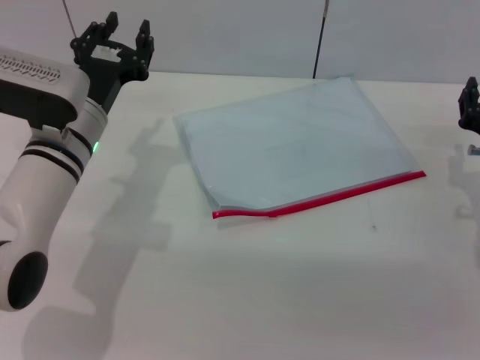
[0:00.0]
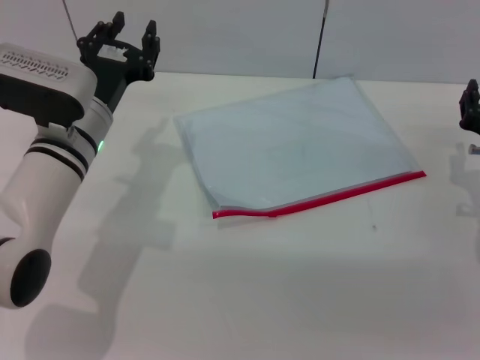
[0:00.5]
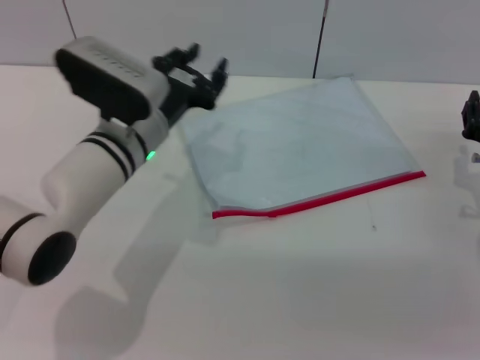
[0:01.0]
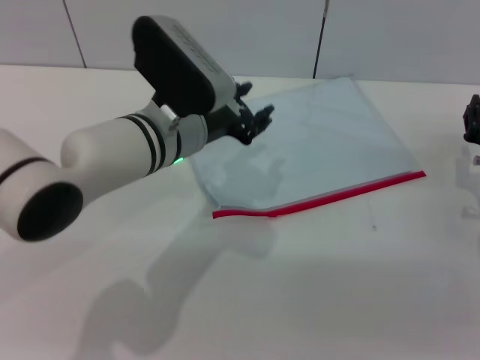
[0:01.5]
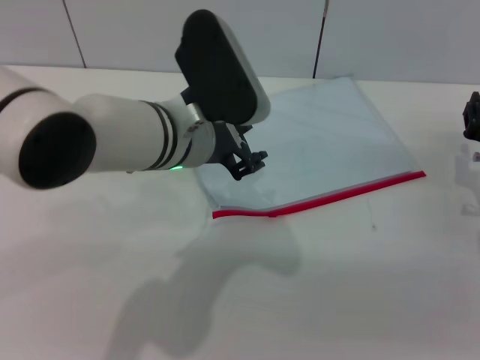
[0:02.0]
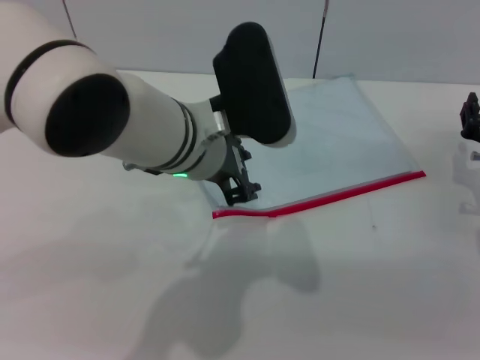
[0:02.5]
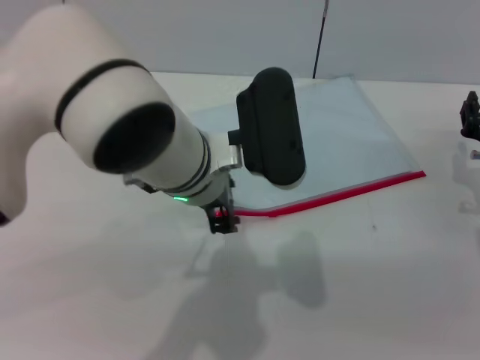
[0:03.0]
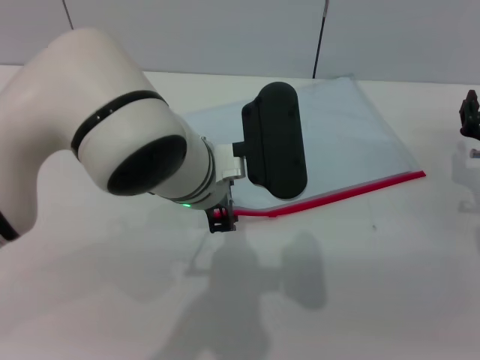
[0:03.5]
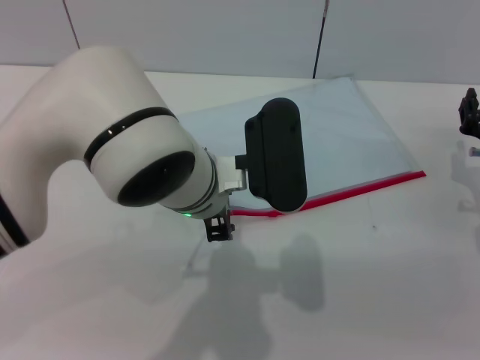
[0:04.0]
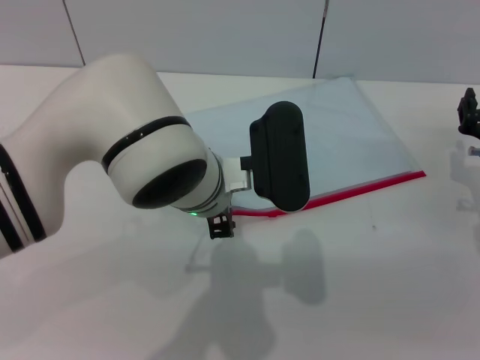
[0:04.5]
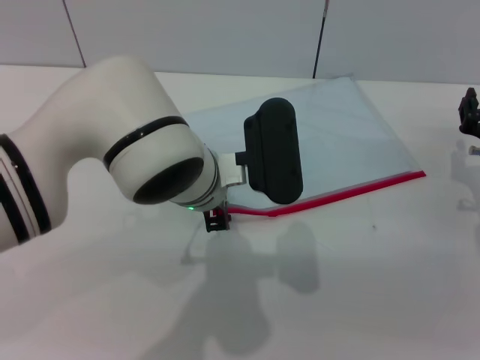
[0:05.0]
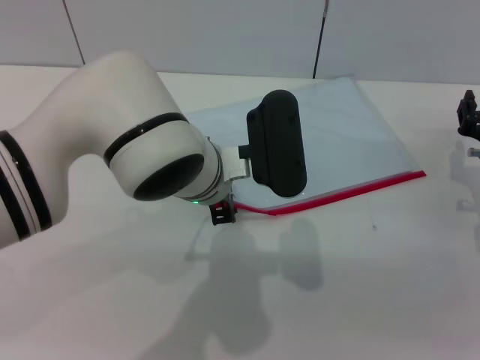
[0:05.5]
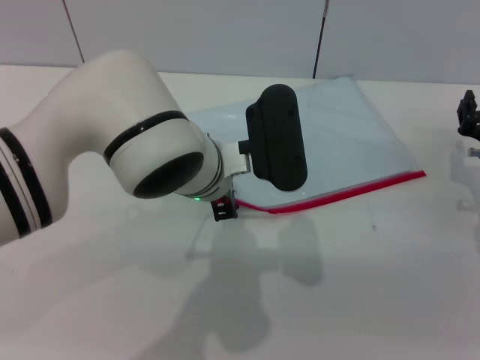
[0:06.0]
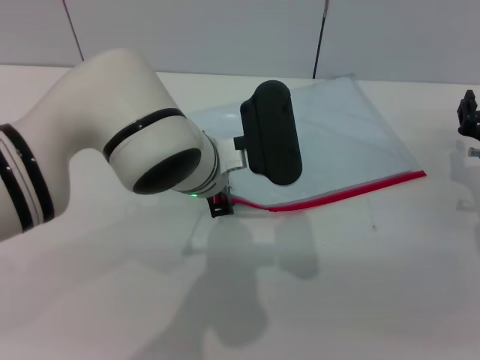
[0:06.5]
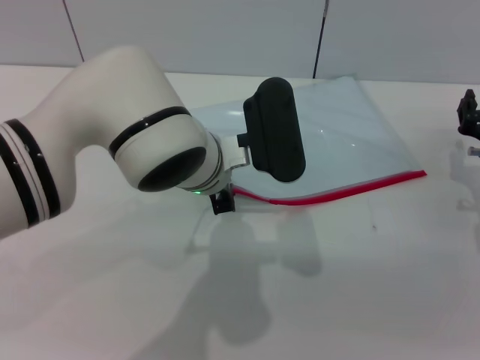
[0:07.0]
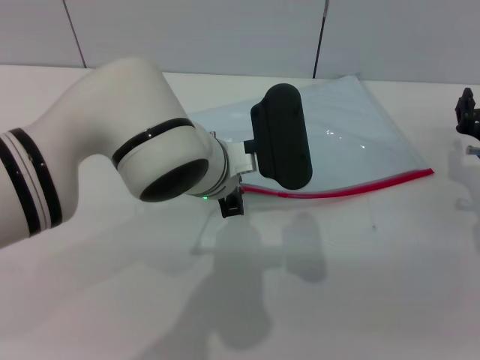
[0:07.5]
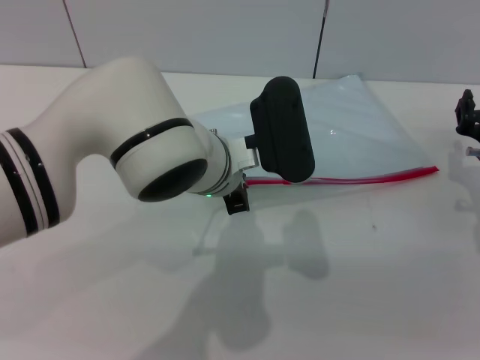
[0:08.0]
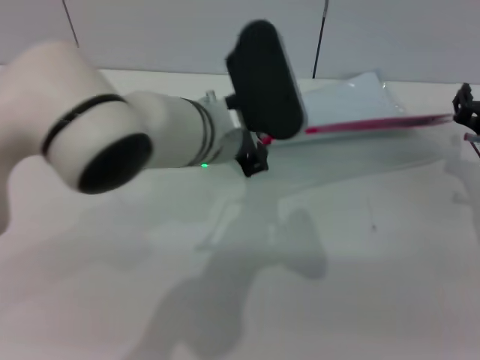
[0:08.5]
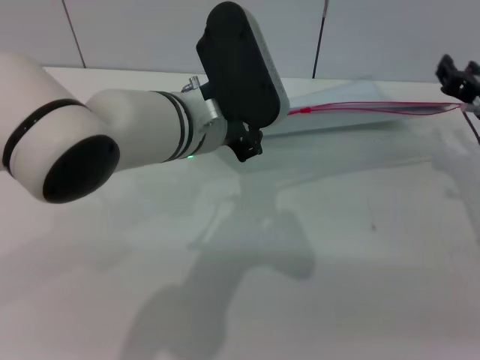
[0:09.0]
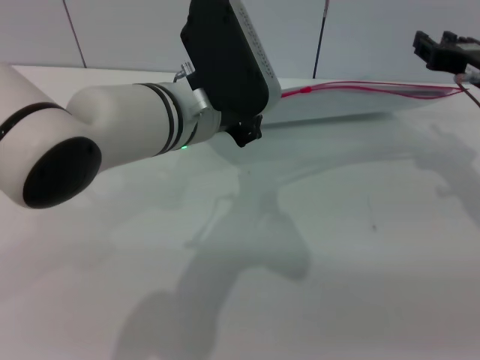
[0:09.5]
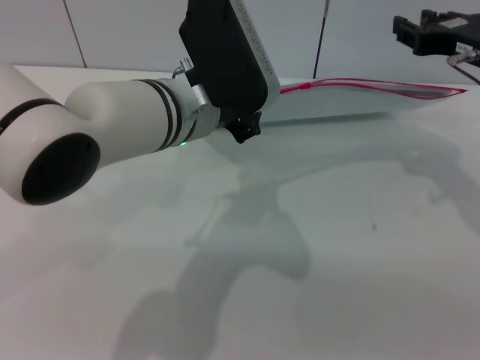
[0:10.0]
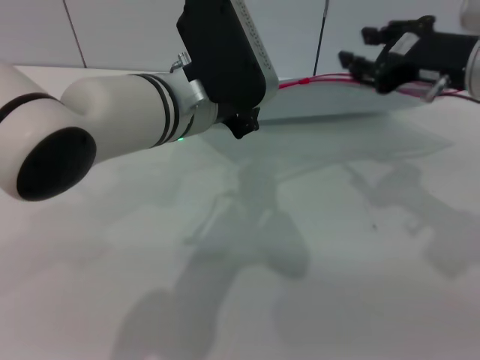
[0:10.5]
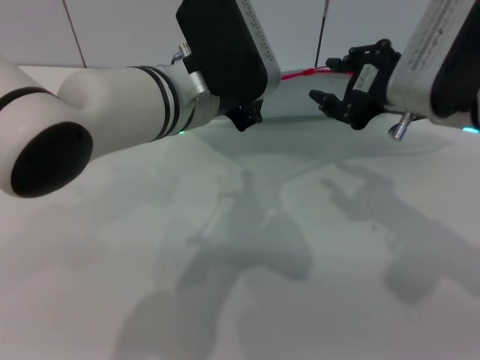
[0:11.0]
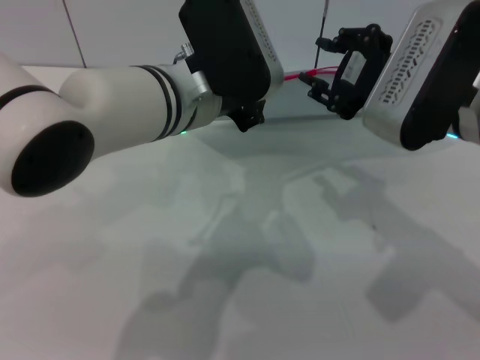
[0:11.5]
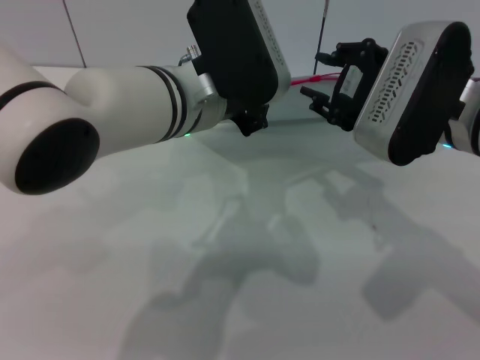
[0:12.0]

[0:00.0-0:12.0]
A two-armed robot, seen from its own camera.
Step, 0:00.0 to 0:08.5: Pick up the transparent plastic bag with the left gripper.
0:00.0 to 0:02.0: The left gripper is displaced to the right and upward by about 15 cm.
0:04.0 to 0:06.0: The grippers move only a little.
0:06.0 to 0:08.0: The left gripper closes.
0:08.0 to 0:10.0: The right gripper travels upward by approximately 15 cm. The left gripper moves upward, some 5 cm.
0:10.0 to 0:12.0: The right gripper is displaced to the left and backward by approximately 10 cm.

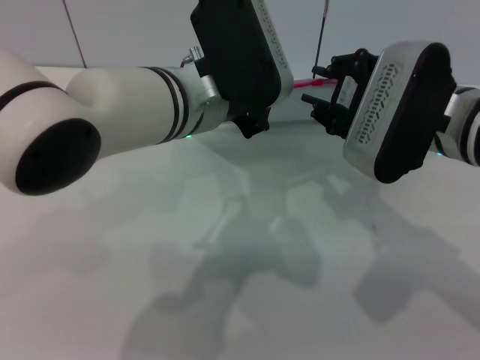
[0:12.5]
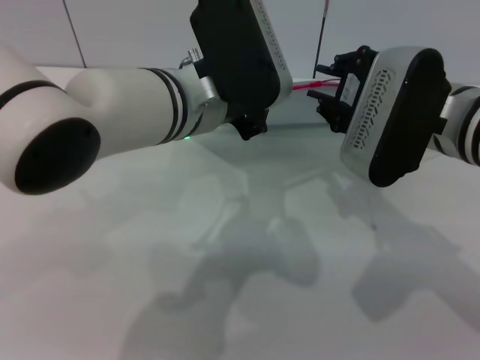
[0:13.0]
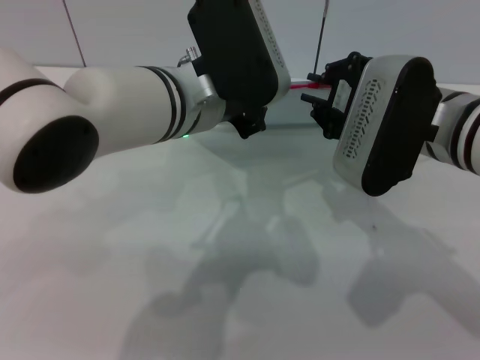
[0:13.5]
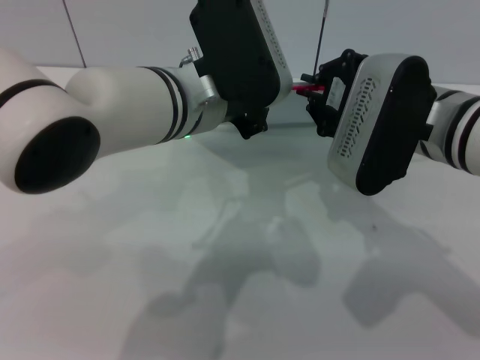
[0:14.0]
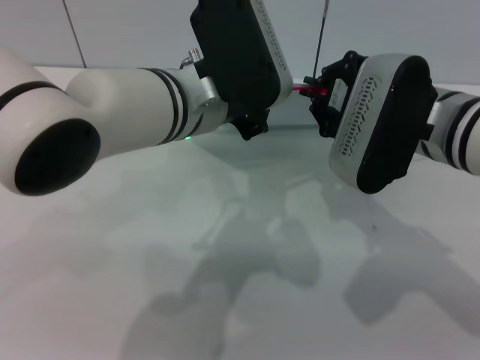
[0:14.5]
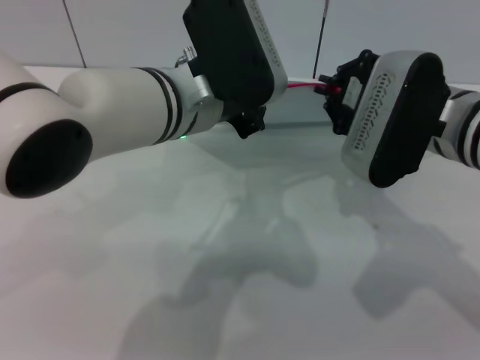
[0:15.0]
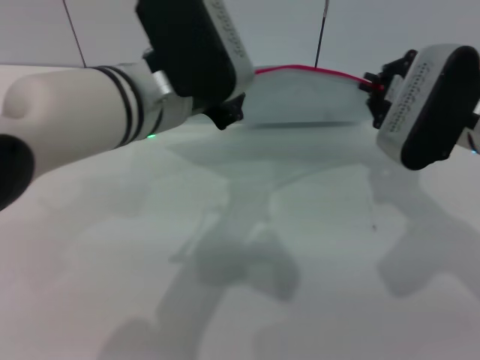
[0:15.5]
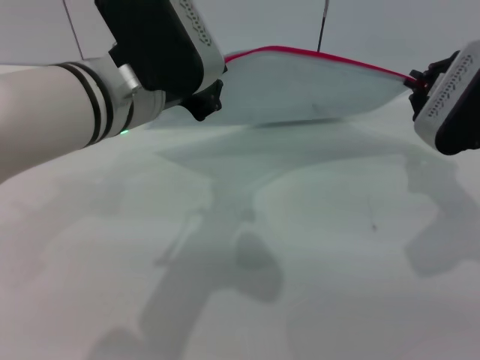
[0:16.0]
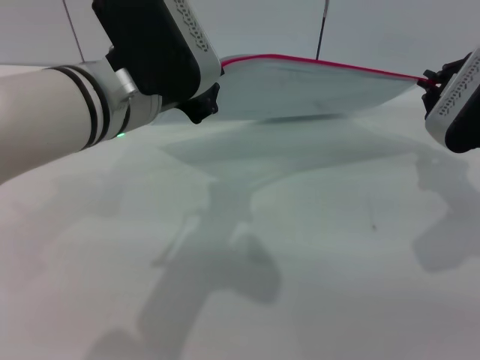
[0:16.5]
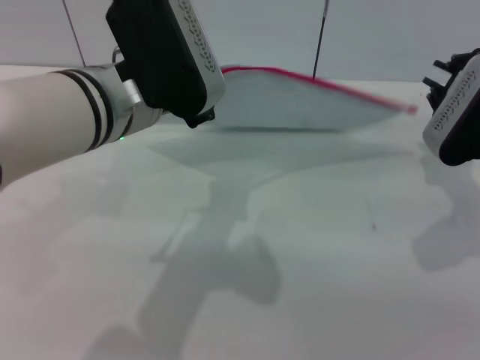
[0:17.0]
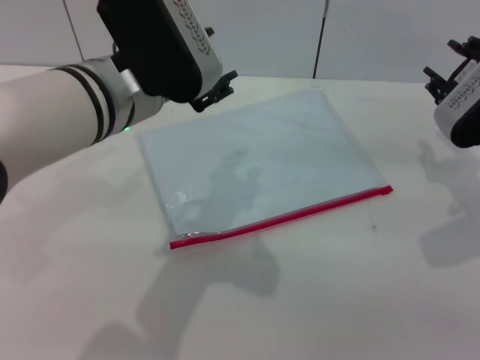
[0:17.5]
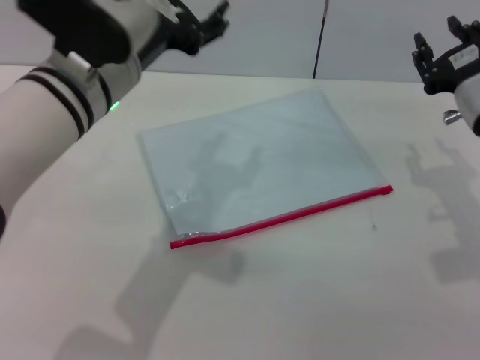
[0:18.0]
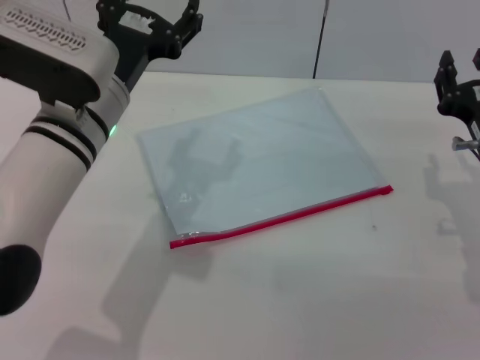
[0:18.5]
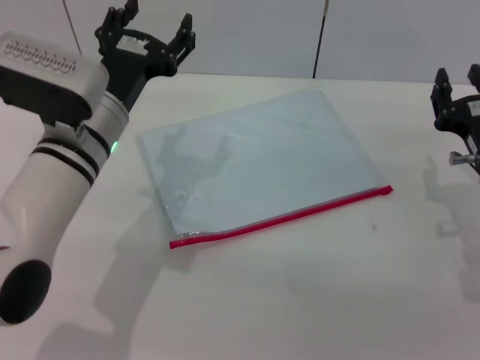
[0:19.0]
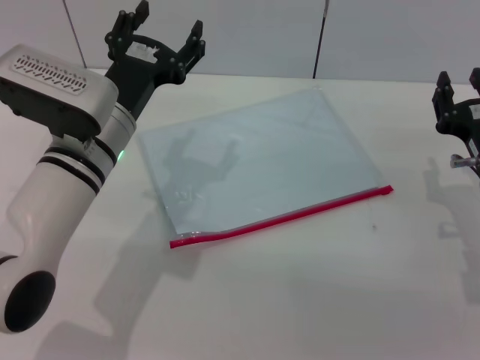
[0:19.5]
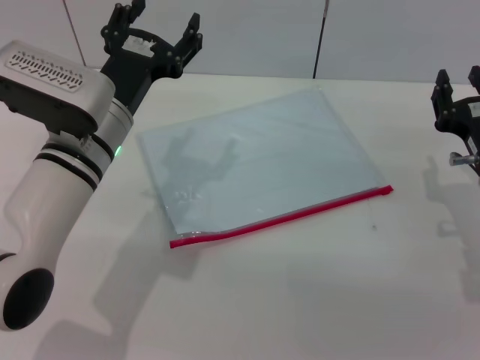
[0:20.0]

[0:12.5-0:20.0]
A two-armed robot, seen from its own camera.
Step, 0:12.5 to 0:17.0: Pulling up the zipper on the transparent plastic bag with the right gripper to close it.
Step, 0:17.5 to 0:18.0: Place the transparent plastic bag.
0:12.5 to 0:14.5: The right gripper closes.
0:14.5 to 0:16.5: The right gripper is displaced to the right by roughly 10 cm. Meanwhile the left gripper changes place by approximately 5 cm.
0:16.5 to 0:18.0: The right gripper opens. Meanwhile the left gripper opens up.
0:18.0 to 0:20.0: The two grippers go roughly 5 cm downward.

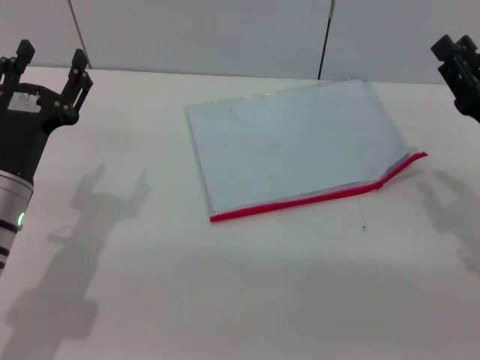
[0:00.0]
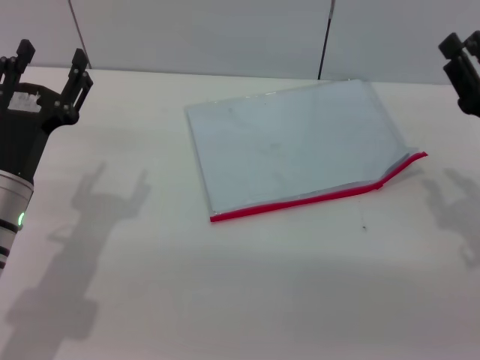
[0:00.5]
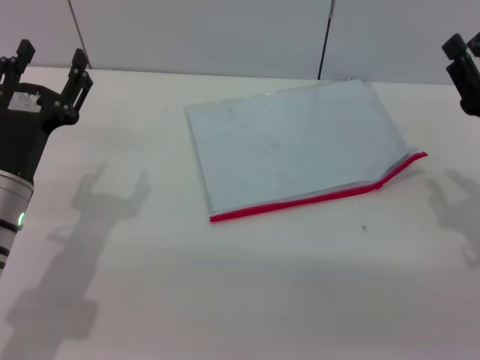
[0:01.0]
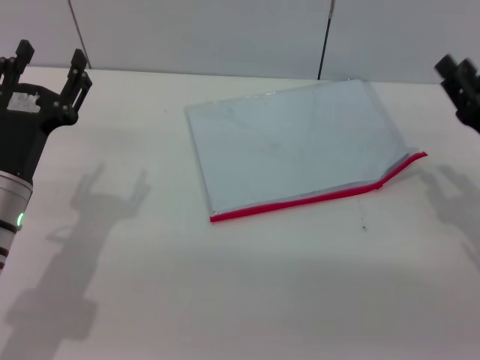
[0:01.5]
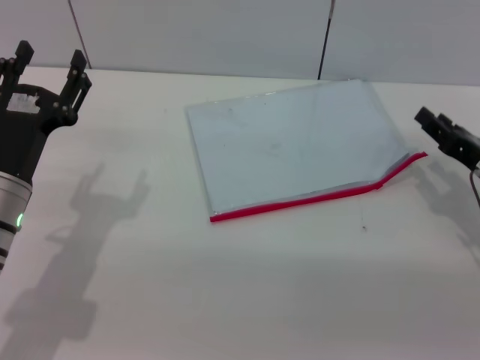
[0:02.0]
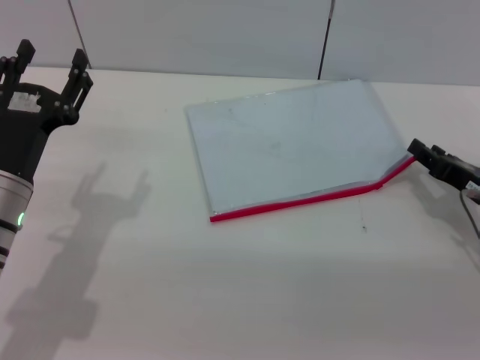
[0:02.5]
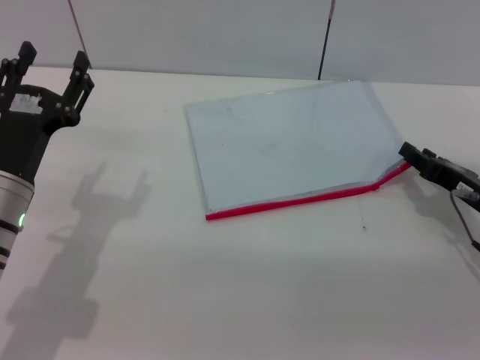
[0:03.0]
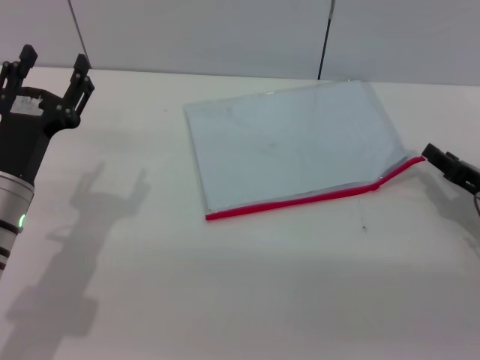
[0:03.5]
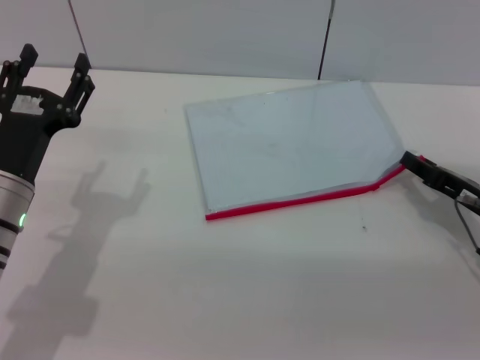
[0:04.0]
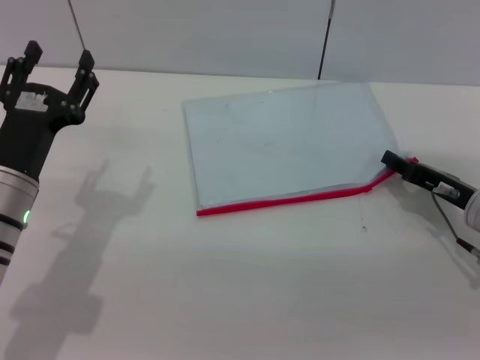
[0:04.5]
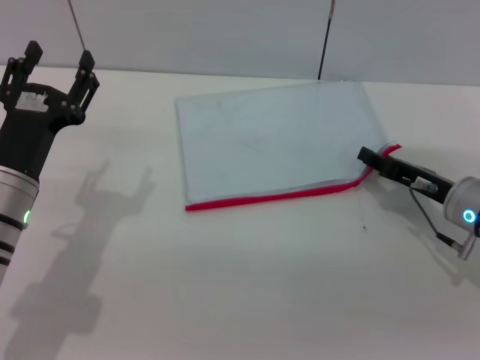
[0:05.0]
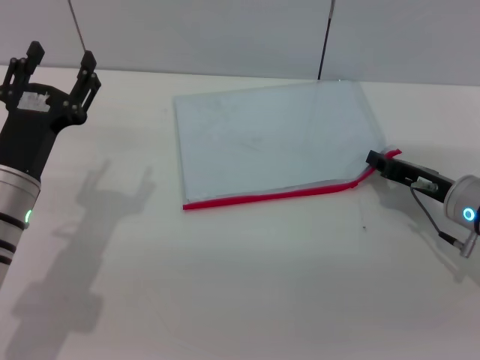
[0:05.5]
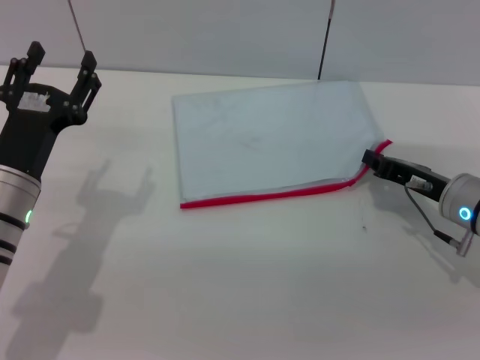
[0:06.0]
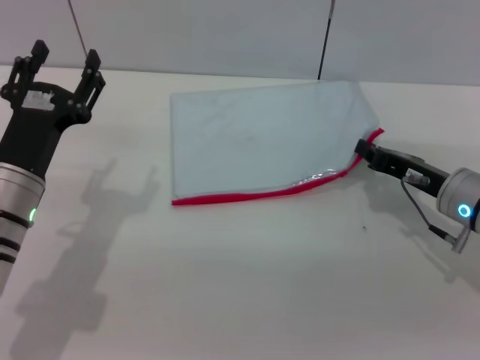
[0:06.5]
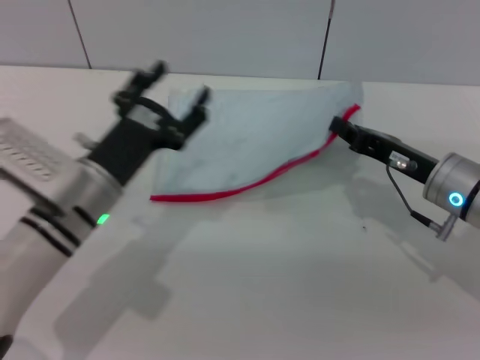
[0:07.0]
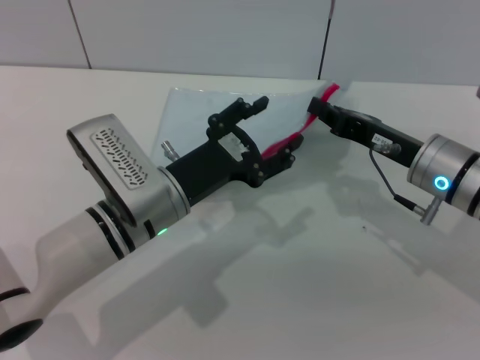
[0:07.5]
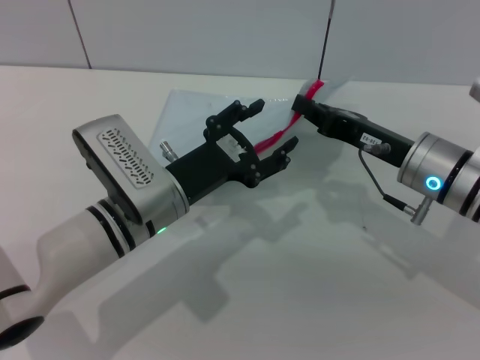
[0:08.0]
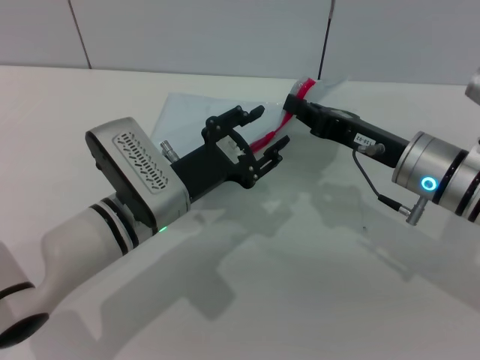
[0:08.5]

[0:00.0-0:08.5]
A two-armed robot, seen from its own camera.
Step, 0:00.0 to 0:07.0: Pick up the transparent plastic bag with the right gripper.
0:02.0 to 0:04.0: The grippers stay close to where they were, moving slightly.
0:04.0 to 0:06.5: The right gripper heads to the left, covering roughly 5 cm, and closes its fingers.
0:06.5 to 0:08.5: The right gripper moves to the left, some 5 cm; the left gripper is displaced to the right by some 10 cm.
